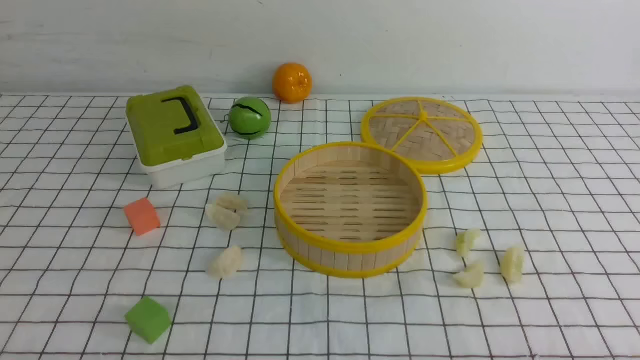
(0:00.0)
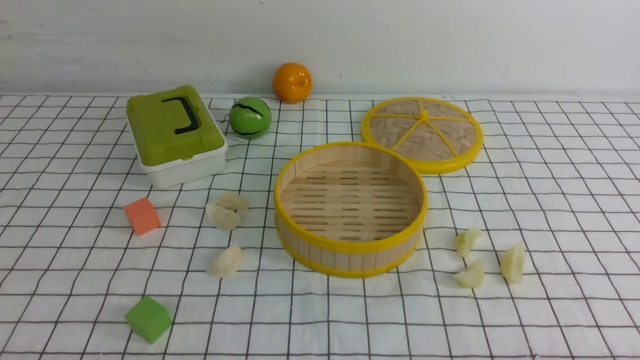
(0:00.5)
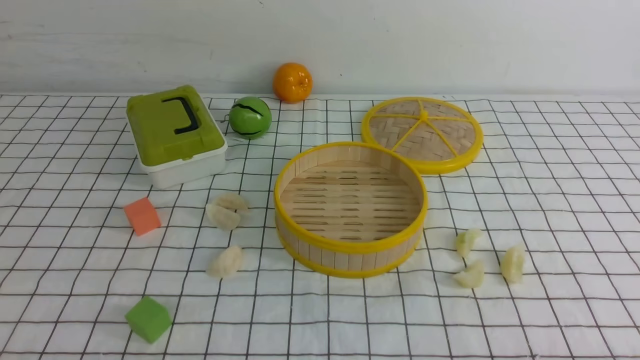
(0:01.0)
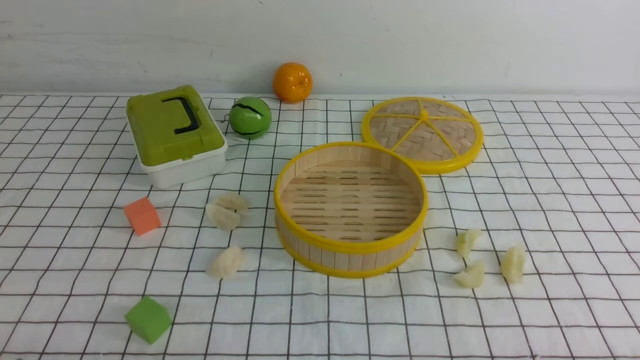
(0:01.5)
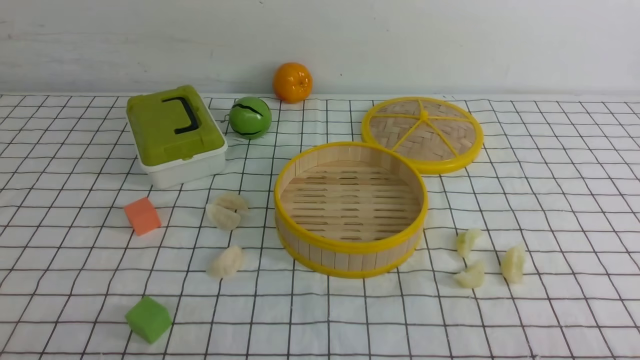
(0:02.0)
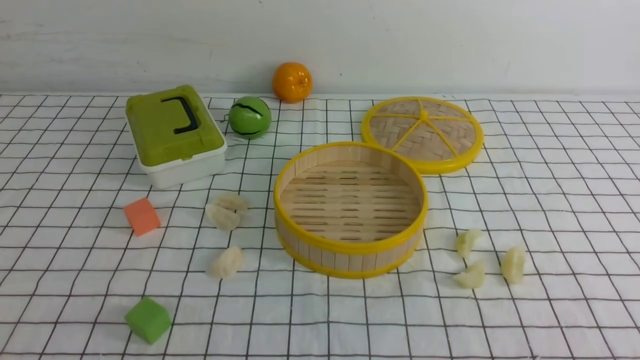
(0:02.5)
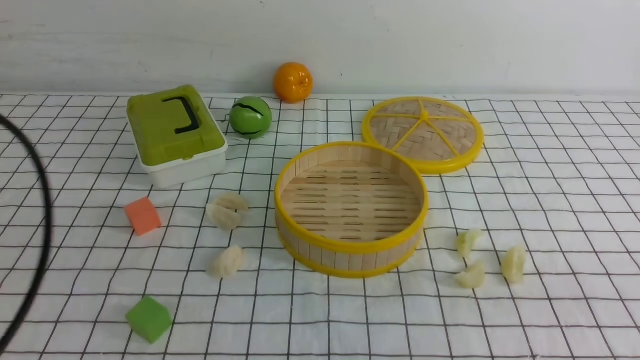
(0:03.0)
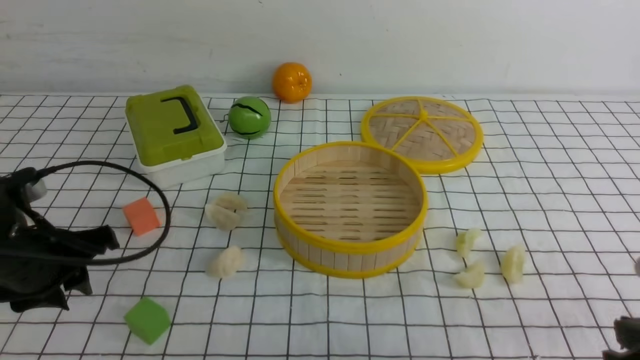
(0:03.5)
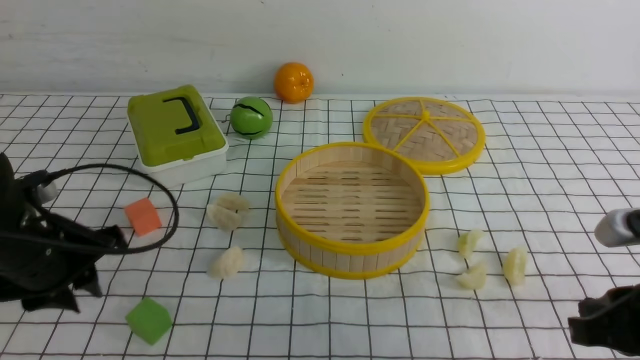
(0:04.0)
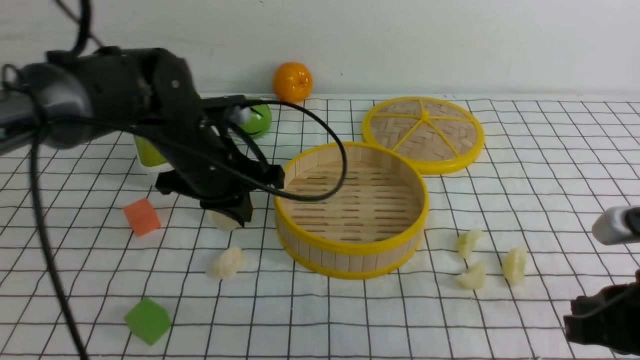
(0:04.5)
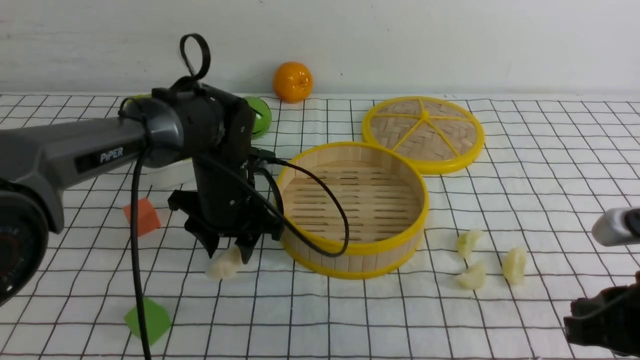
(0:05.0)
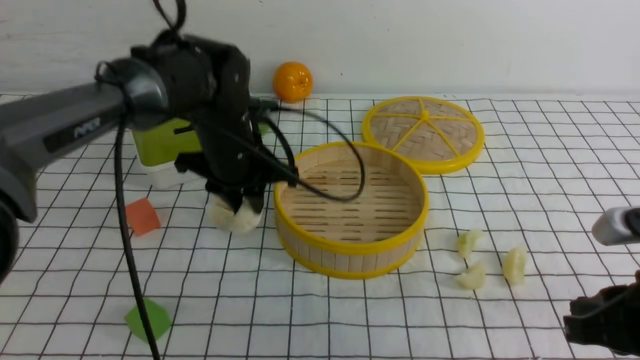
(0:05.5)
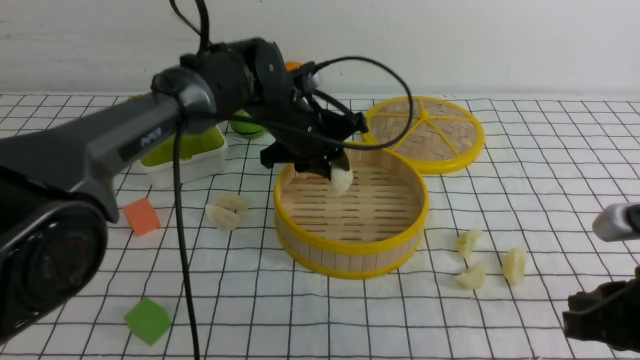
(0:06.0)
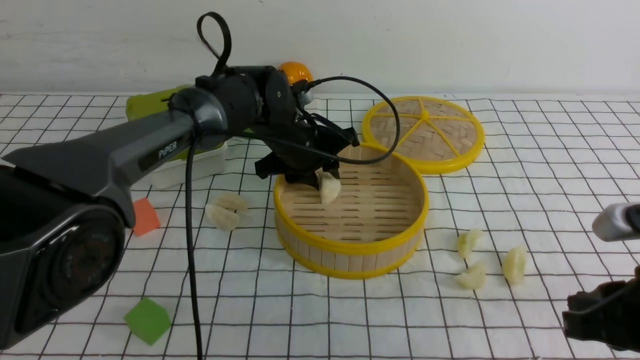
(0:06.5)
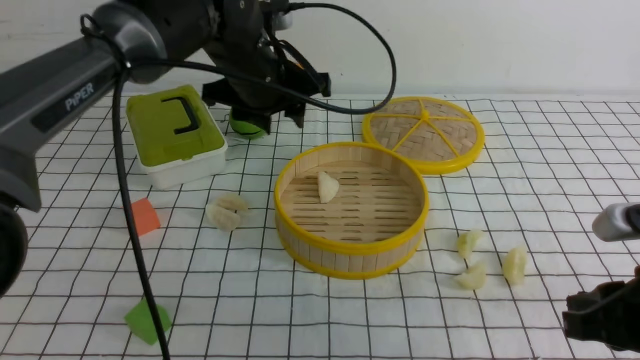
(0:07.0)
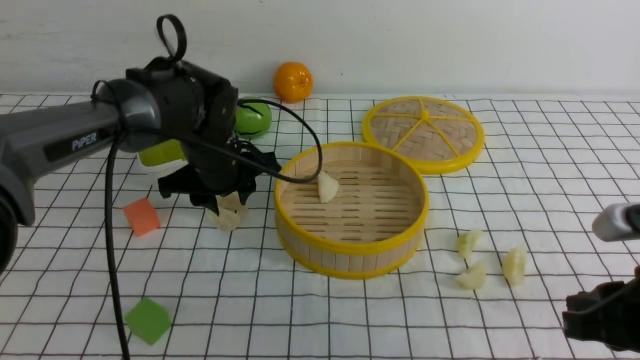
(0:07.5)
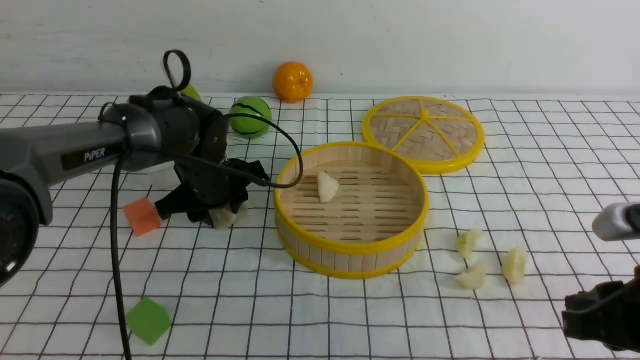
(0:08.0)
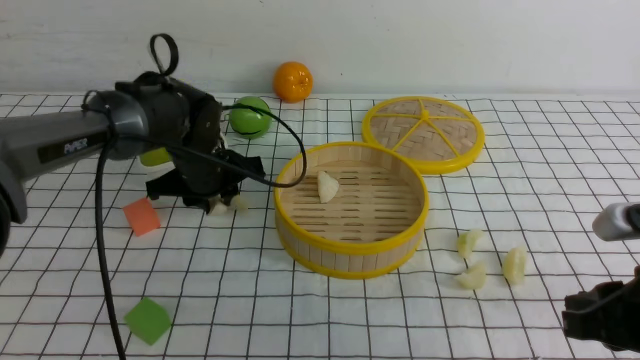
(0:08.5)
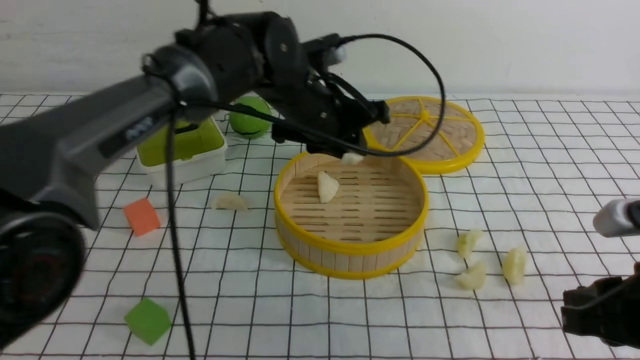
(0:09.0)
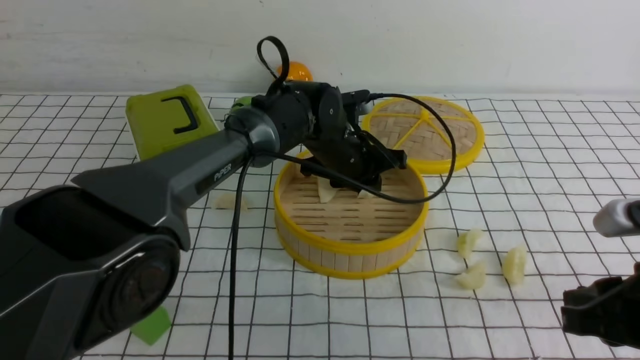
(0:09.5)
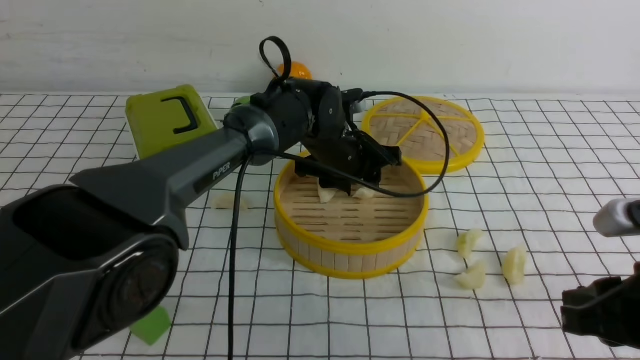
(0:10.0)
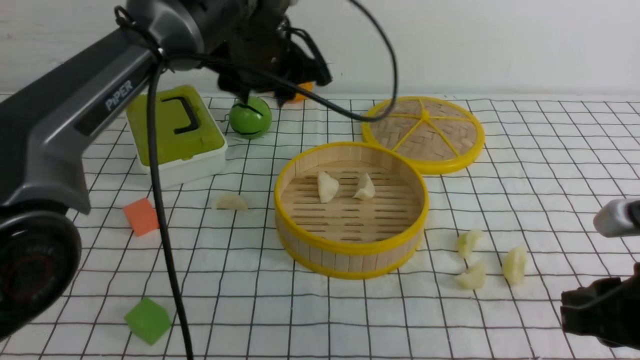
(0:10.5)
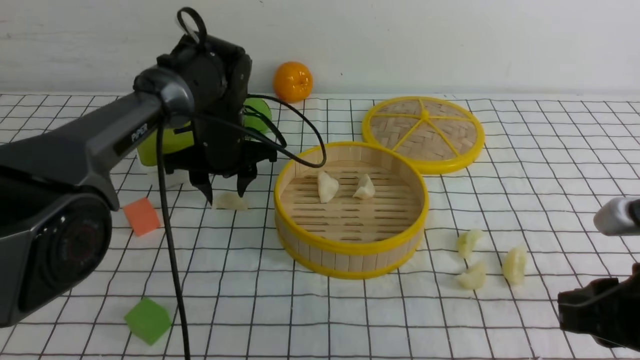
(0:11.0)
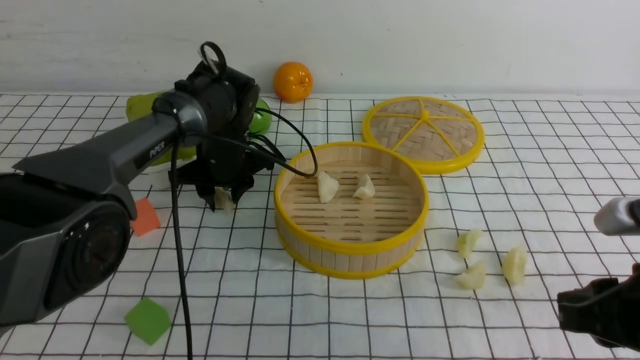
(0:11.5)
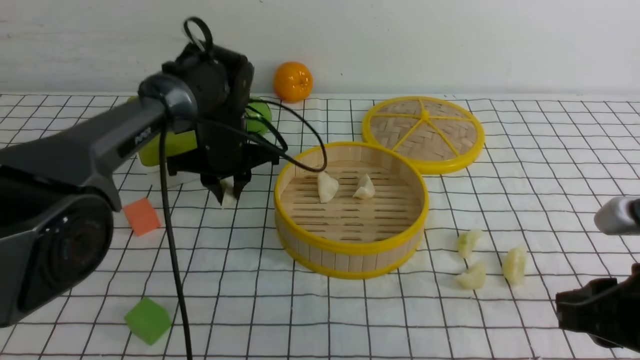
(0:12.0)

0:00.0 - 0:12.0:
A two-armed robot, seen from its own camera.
Task of the whole recording: put the dumplings into the steamer on the table with the white tablecloth.
Step, 0:00.0 - 0:08.5: use the left arm to grab a dumpling.
Step, 0:09.0 - 0:10.0: use the left arm to put the dumpling into the steamer.
Step, 0:10.5 - 0:12.0: use the left arm to grab a dumpling.
0:02.0 - 0:04.0: The left gripper heads forward, covering approximately 25 cm. The right gripper shifts roughly 10 cm forward, and closes its fingers.
0:04.0 - 0:06.0: The left gripper travels to the right and forward by approximately 25 cm, and opens and closes again.
0:06.0 - 0:08.0: The left gripper is displaced to the left and downward by some 10 cm.
0:08.0 - 0:10.0: The left gripper heads to the right, covering roughly 15 cm.
0:10.0 - 0:12.0: The left gripper moves up and down over roughly 15 cm, changing direction 2 times, and closes.

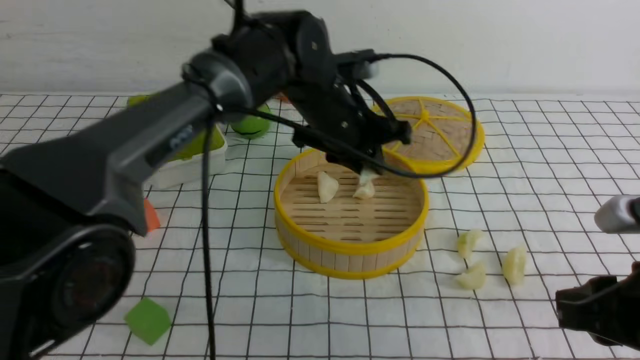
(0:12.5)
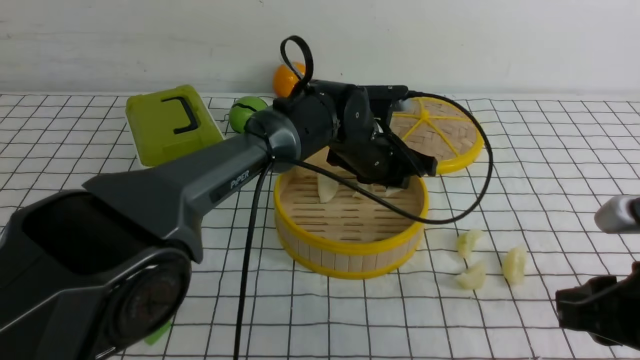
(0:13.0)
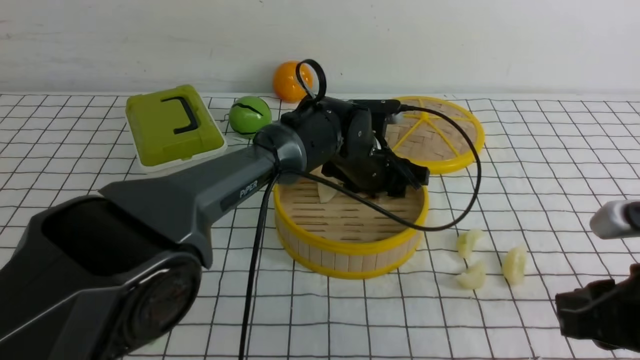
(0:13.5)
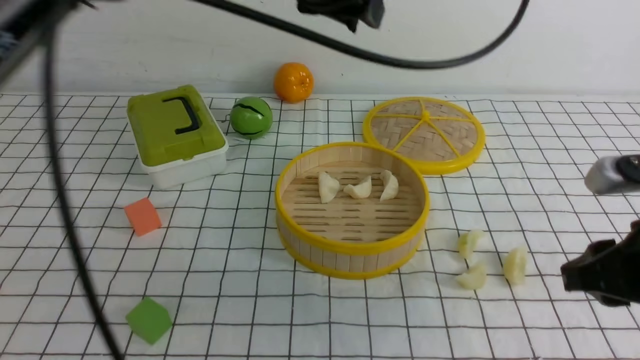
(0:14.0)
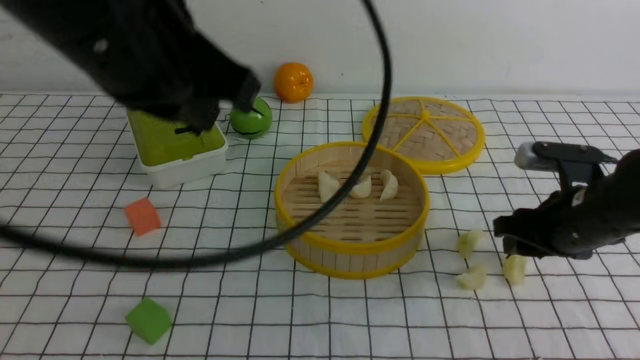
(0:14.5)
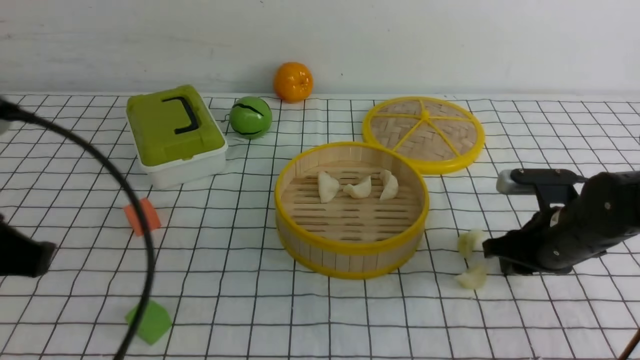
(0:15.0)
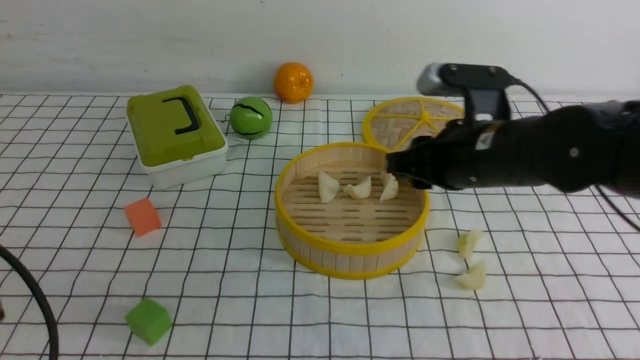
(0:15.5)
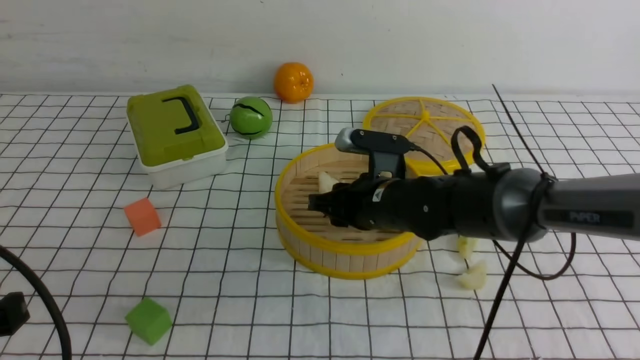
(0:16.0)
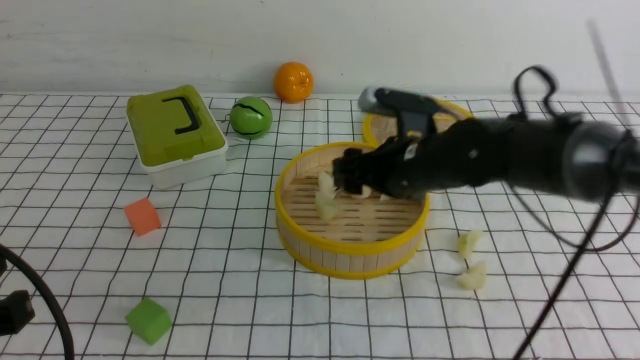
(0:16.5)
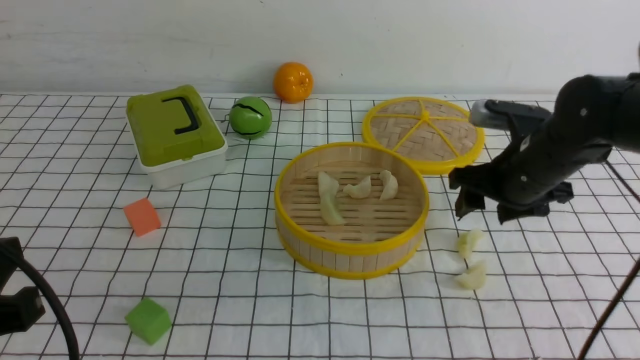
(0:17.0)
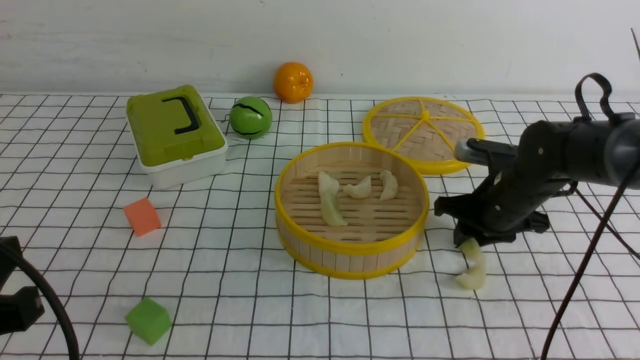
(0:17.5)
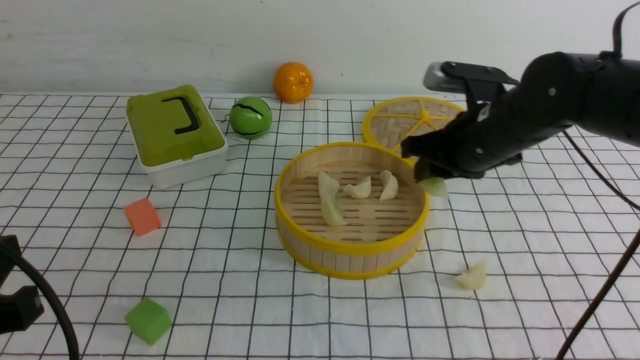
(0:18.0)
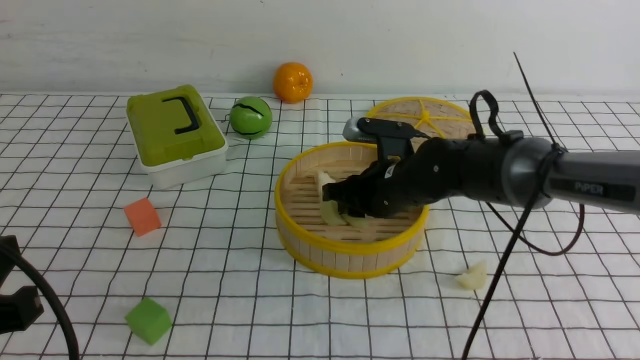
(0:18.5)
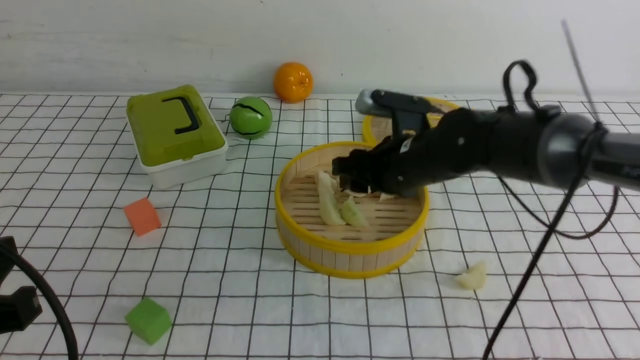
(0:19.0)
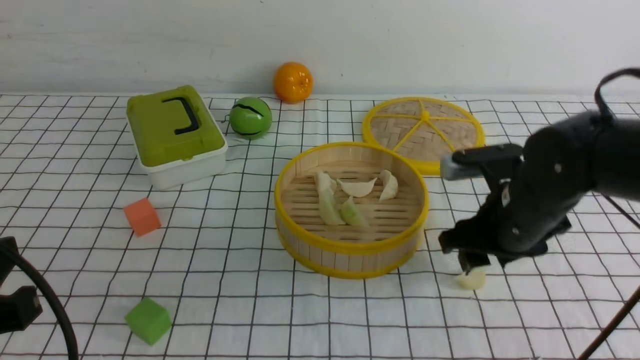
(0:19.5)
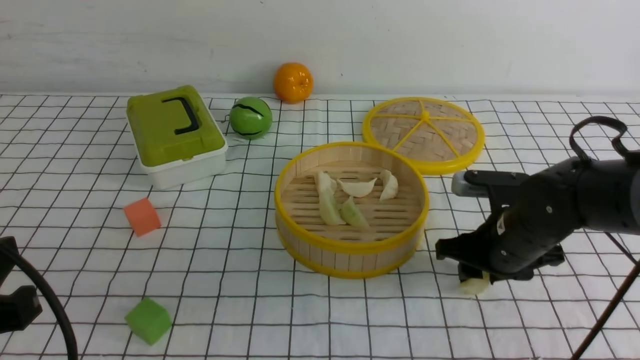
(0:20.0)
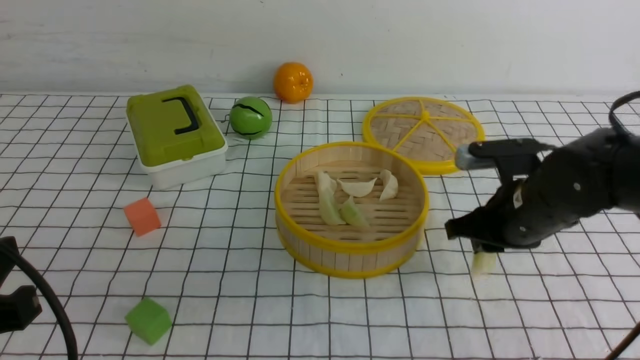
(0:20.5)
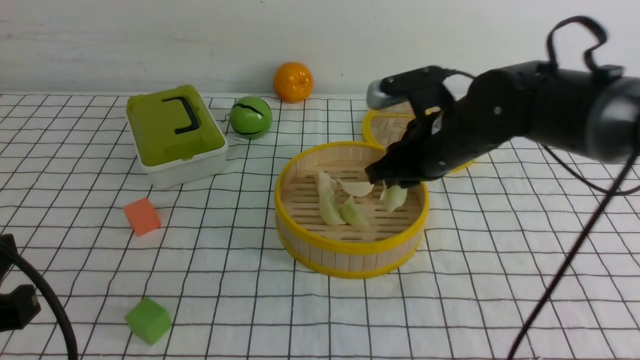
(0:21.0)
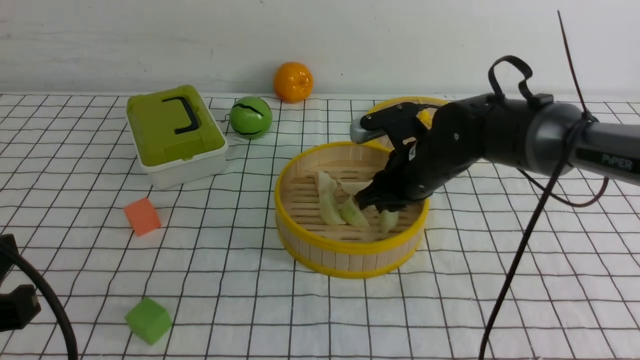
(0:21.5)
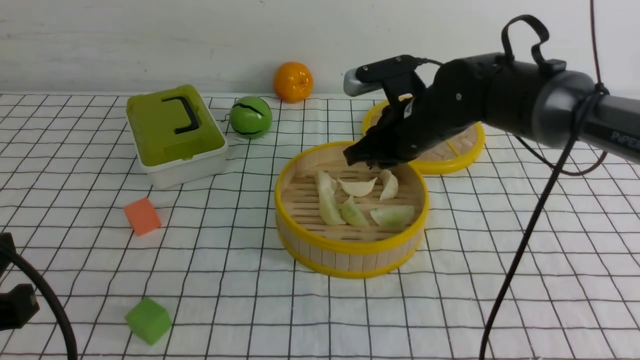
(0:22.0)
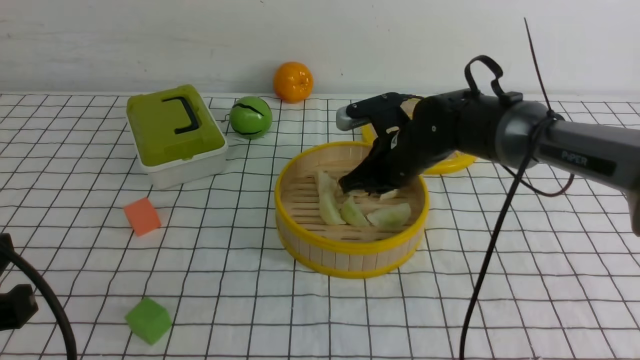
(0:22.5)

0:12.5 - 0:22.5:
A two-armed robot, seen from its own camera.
Task of the whole recording: put the dumplings into the steamer on the table with the white tablecloth.
Step, 0:12.5 - 0:13.5: use the left arm to put the dumpling into the steamer.
Step, 0:14.0 - 0:15.0: use the right arm to grab a dumpling.
Step, 0:15.5 - 0:16.0: use the right arm to put the dumpling into the steamer.
Step, 0:16.5 - 0:18.0: use the right arm to grab a dumpling.
Step, 0:18.5 - 0:19.0: use the right arm to put the dumpling into the steamer.
Step, 0:19.5 - 0:20.5: use the right arm to grab a dumpling.
Step, 0:21.0 - 0:22.0: use the right arm to put the dumpling into the steamer.
0:12.5 - 0:14.5: The left gripper shifts about 30 cm backward, upward and to the left, and closes, while the right gripper is displaced forward by roughly 15 cm, and opens its fingers.
0:14.5 - 0:16.5: The right gripper shifts some 15 cm to the left. Meanwhile the left gripper heads downward, backward and to the left, covering approximately 25 cm.
0:16.5 - 0:18.5: The right gripper travels downward by about 5 cm, moves approximately 10 cm to the right and comes back, and closes.
0:18.5 - 0:20.5: The right gripper is displaced to the right and backward by roughly 10 cm, and opens and closes again.
0:20.5 - 0:22.5: The right gripper heads forward and to the left, covering about 15 cm, and closes its fingers.
